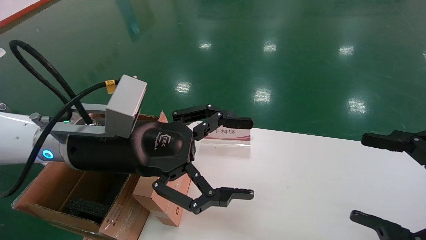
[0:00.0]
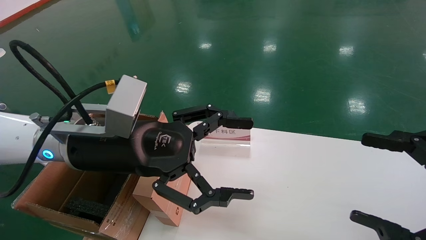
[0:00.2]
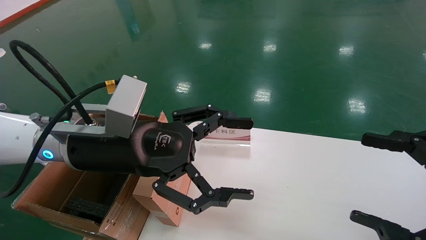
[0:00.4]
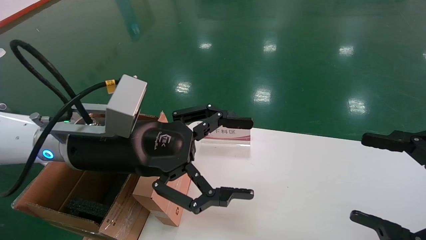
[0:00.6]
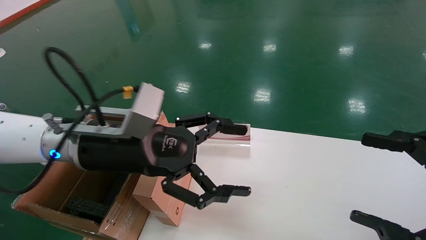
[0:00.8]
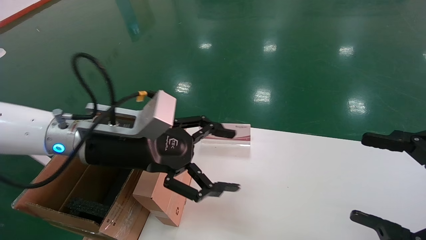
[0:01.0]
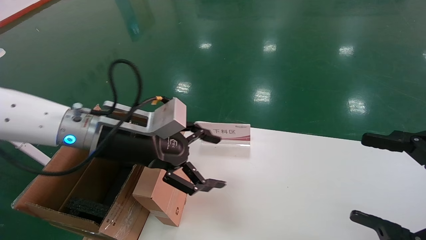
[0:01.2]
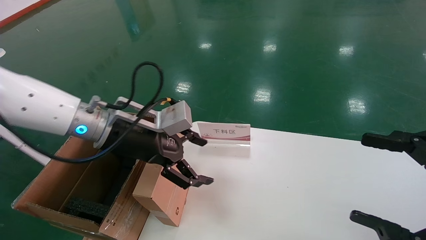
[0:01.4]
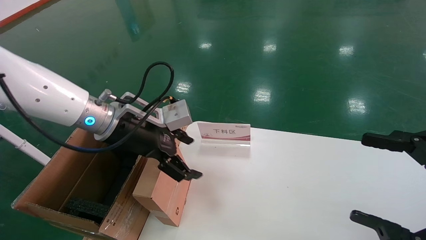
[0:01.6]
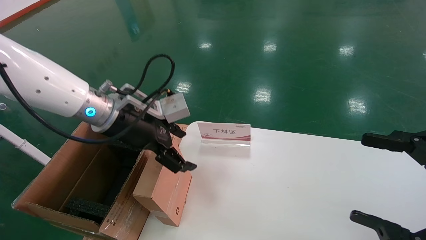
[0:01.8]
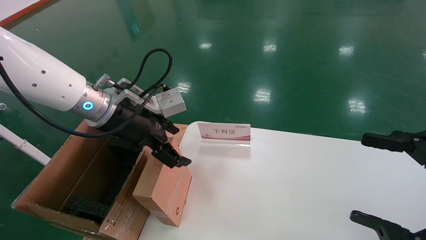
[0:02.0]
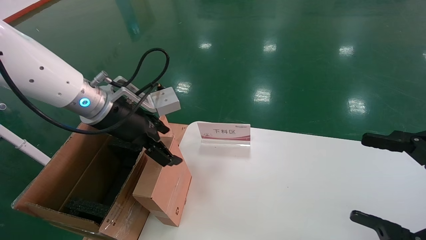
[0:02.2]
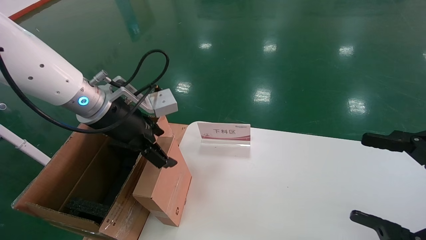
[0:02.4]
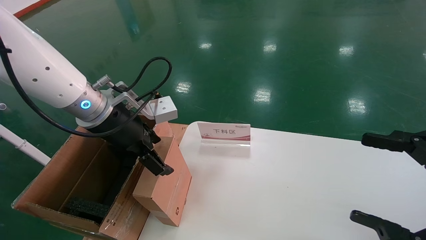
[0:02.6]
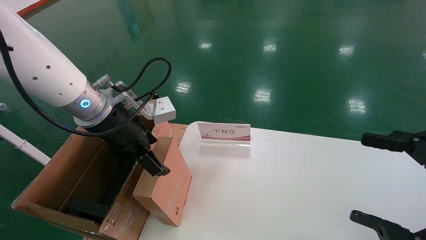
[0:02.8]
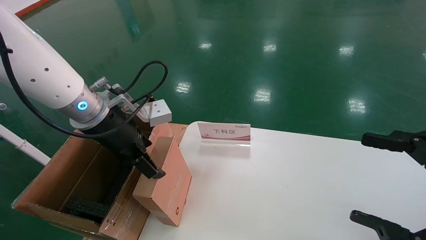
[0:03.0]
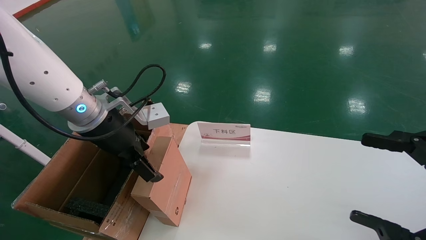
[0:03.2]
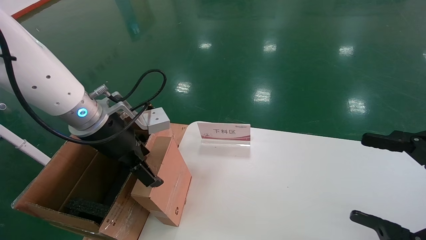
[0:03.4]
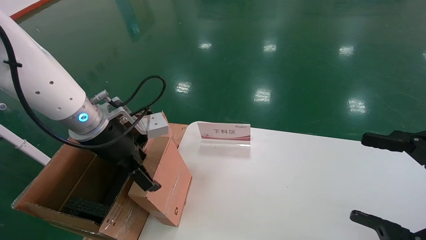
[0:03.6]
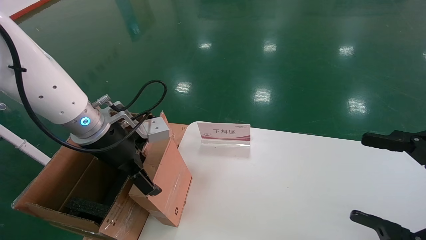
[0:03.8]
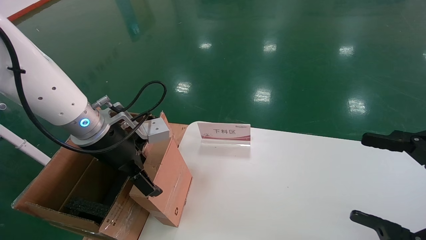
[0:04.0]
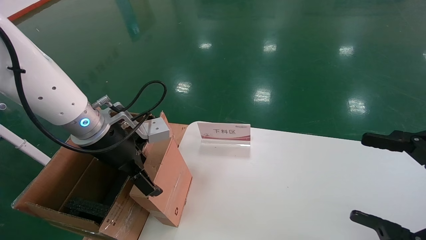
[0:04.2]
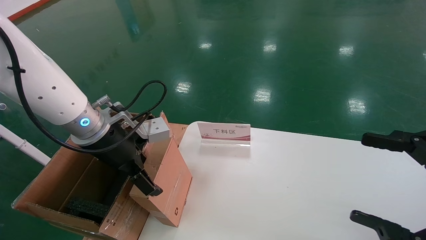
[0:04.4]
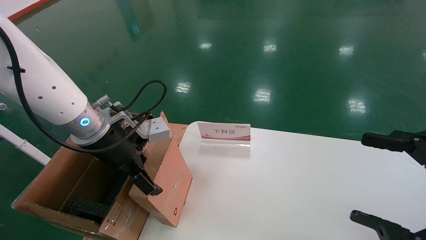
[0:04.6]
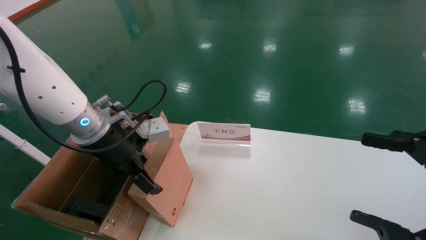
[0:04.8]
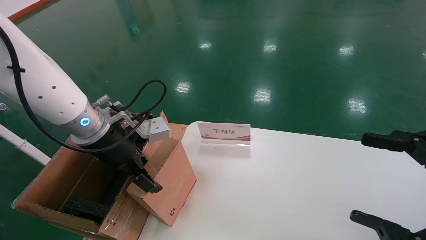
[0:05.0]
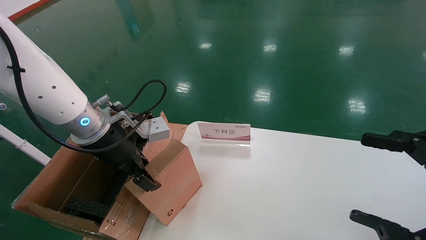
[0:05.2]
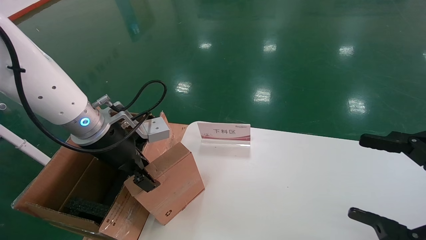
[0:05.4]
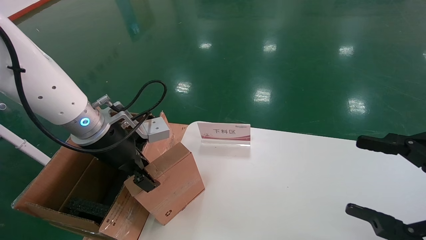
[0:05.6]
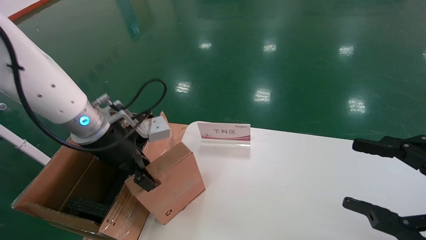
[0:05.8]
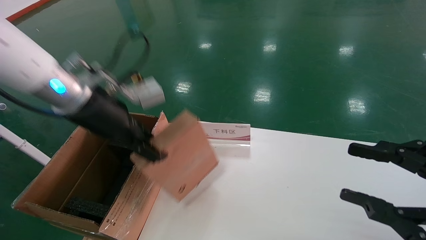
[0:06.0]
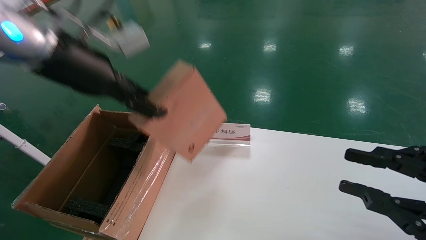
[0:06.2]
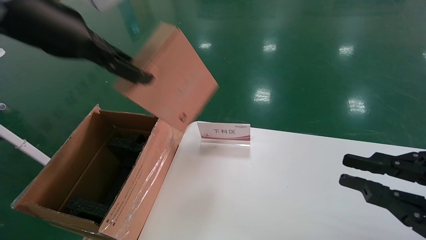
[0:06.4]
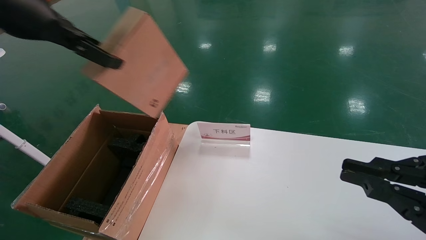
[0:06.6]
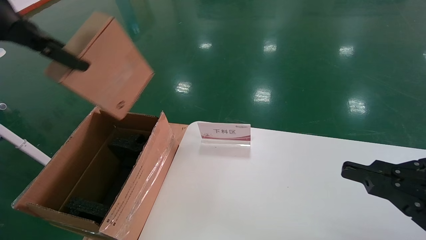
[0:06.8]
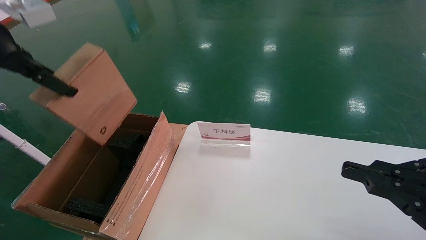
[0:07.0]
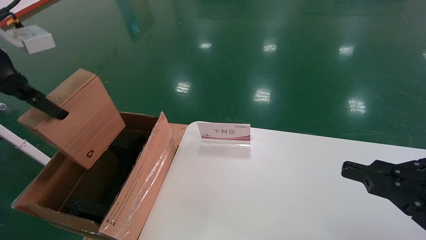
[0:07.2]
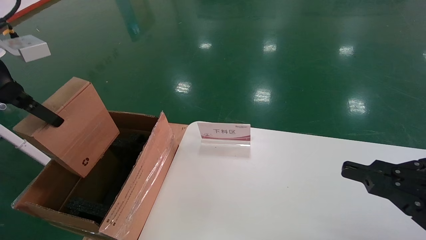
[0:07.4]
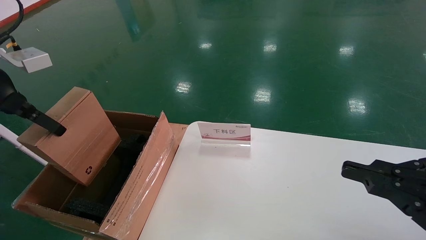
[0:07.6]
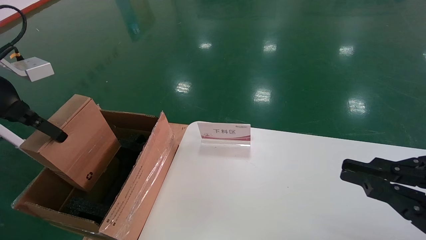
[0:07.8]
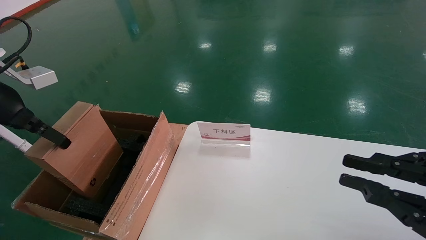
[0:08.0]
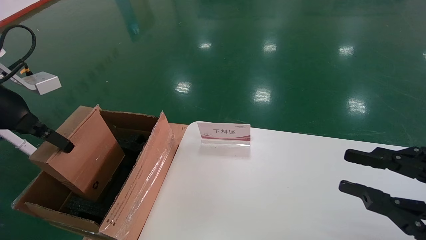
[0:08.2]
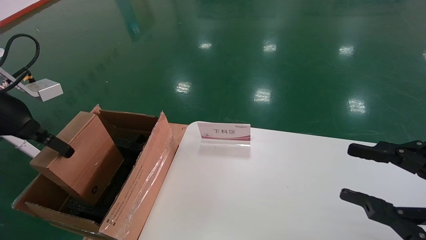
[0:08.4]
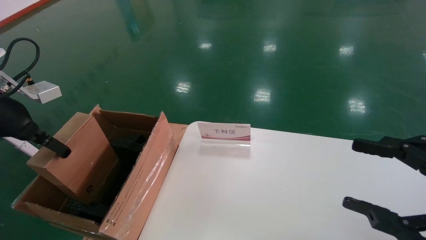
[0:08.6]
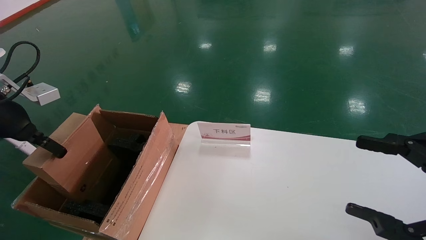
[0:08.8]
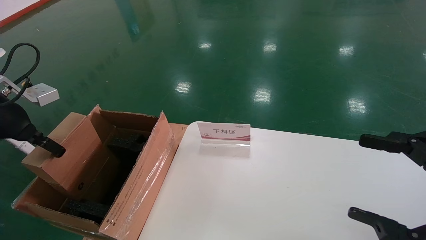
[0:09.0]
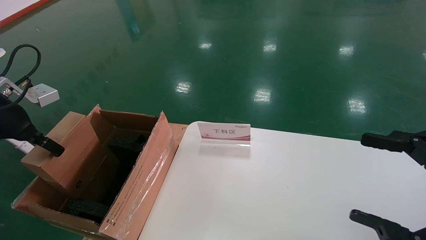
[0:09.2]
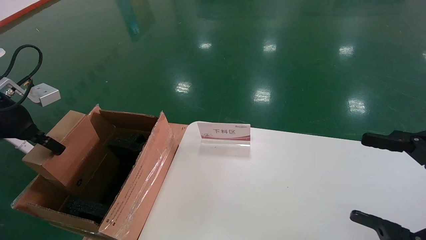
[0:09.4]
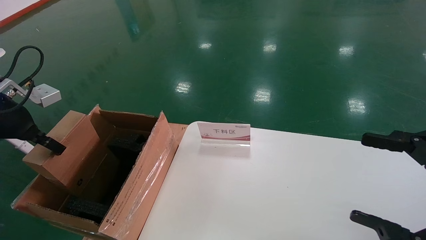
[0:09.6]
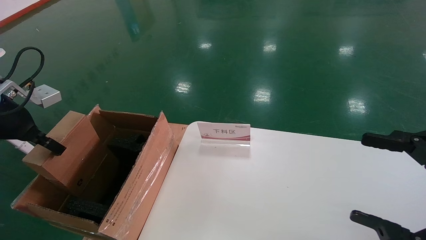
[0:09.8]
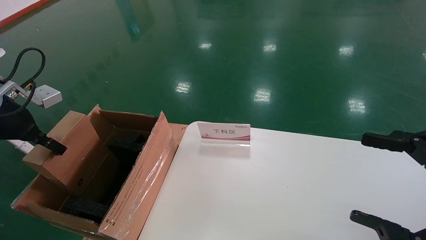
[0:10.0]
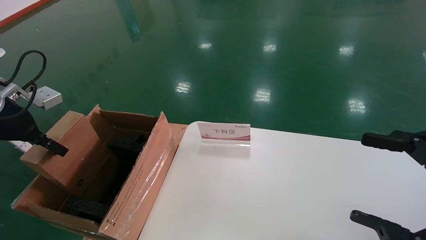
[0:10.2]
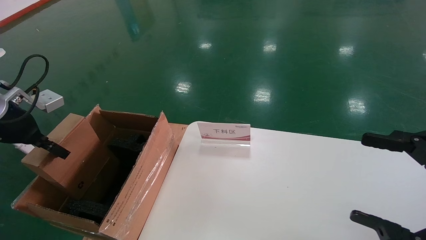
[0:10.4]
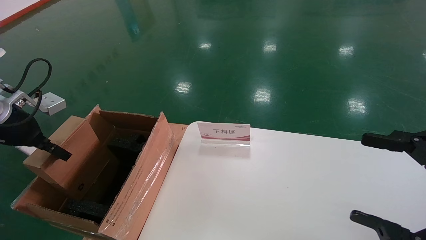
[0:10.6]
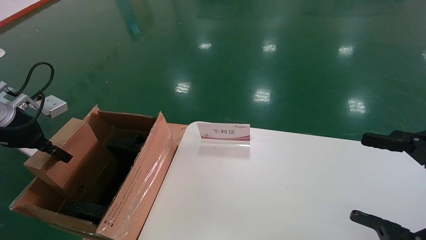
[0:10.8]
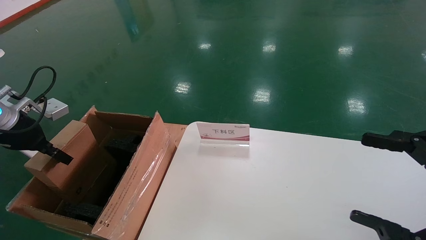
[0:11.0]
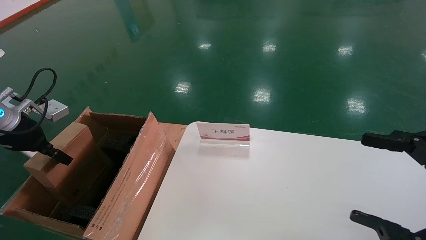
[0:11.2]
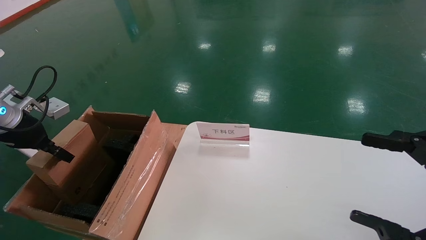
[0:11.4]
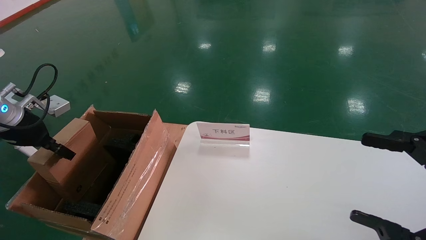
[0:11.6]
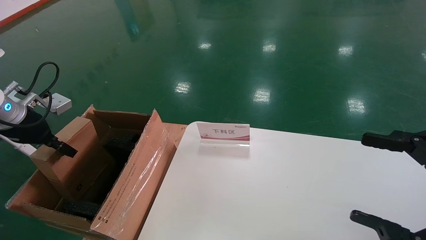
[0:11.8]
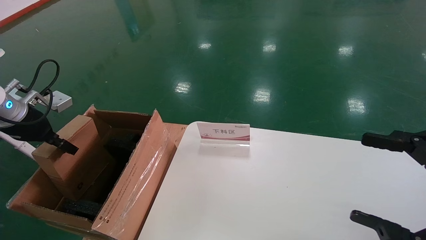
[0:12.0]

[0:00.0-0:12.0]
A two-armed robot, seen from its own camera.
Task of the whole recording: pick up the small cardboard box and load it into the large cardboard box.
Step, 0:00.8 to 0:05.8: Pick up the mouse and power cord box.
0:00.0 to 0:01.6: The left gripper shifts roughly 10 cm forward.
0:03.0 to 0:04.4: The grippers stay close to where they were, moving slightly.
0:04.4 to 0:06.0: The left gripper goes some 10 cm upward, and closes up. The right gripper closes up.
0:06.0 to 0:07.6: The left gripper travels to the left by approximately 15 cm, while the right gripper closes up.
0:07.6 to 0:09.0: The left gripper moves downward, roughly 5 cm. The right gripper opens its fingers.
0:09.0 to 0:10.4: The grippers move only a little.
0:10.4 to 0:12.0: There are only small adjustments of the grippers.

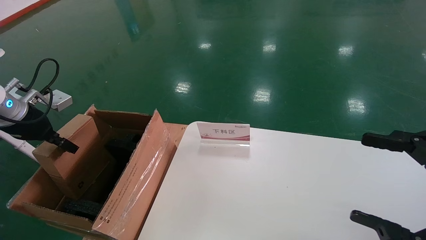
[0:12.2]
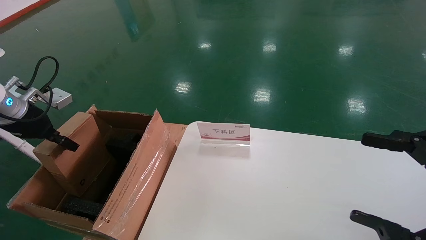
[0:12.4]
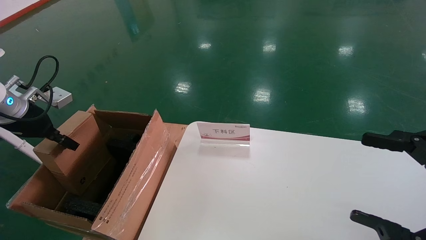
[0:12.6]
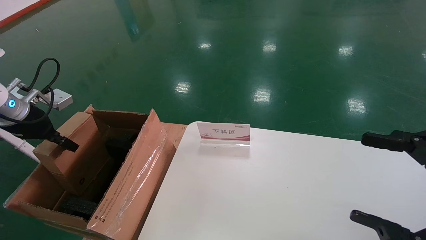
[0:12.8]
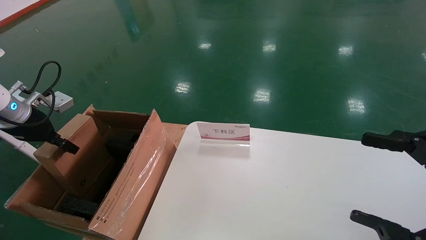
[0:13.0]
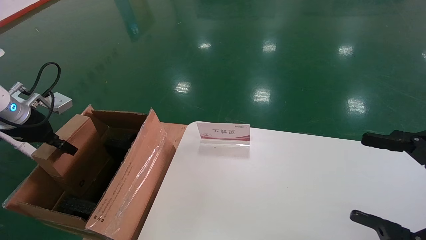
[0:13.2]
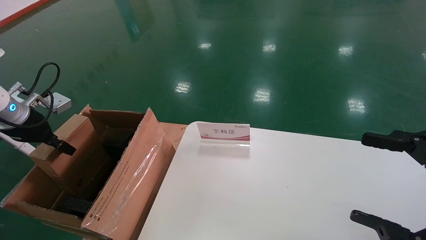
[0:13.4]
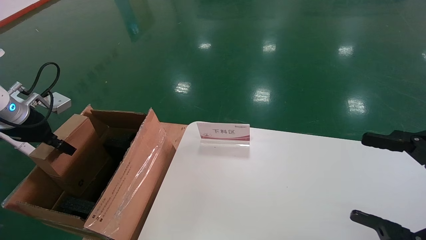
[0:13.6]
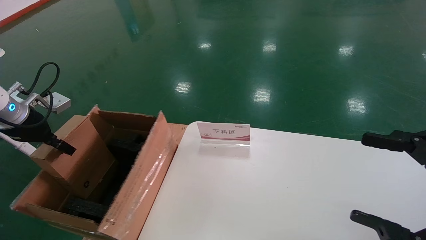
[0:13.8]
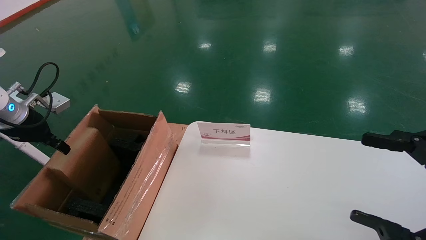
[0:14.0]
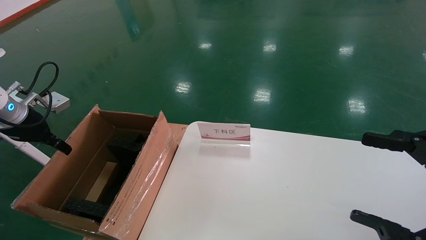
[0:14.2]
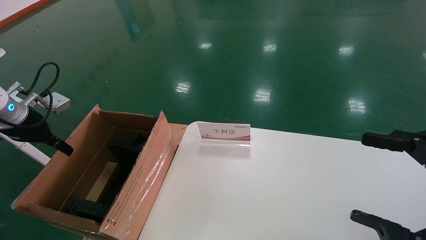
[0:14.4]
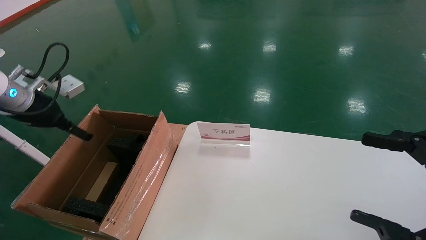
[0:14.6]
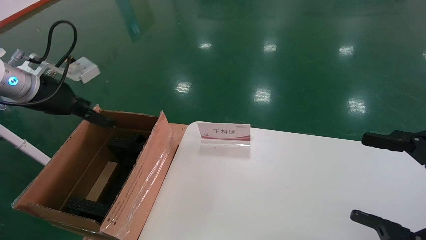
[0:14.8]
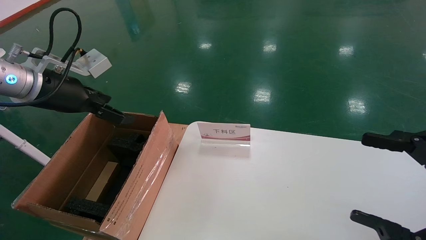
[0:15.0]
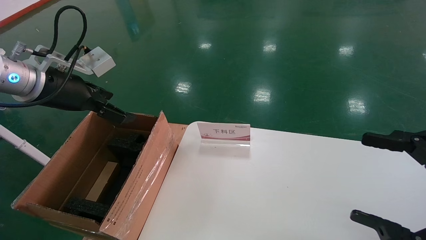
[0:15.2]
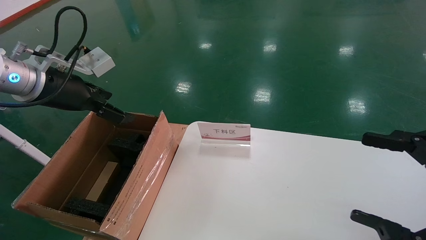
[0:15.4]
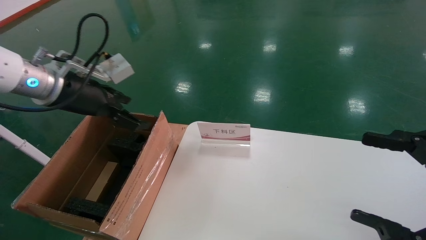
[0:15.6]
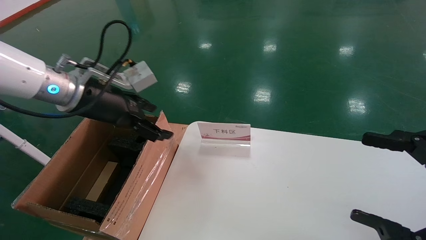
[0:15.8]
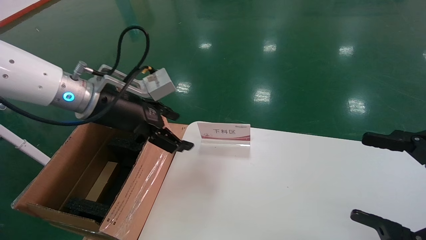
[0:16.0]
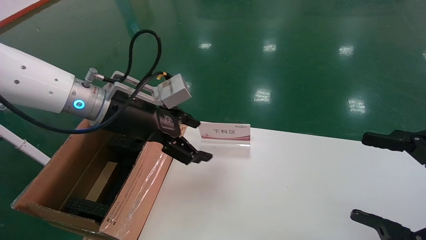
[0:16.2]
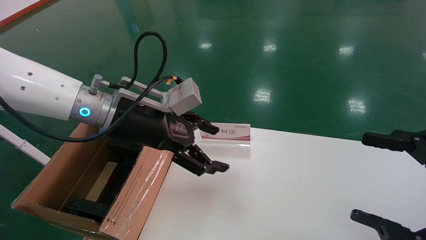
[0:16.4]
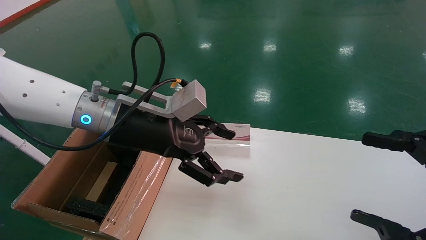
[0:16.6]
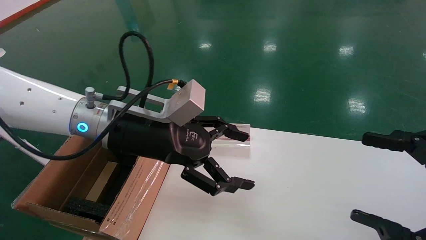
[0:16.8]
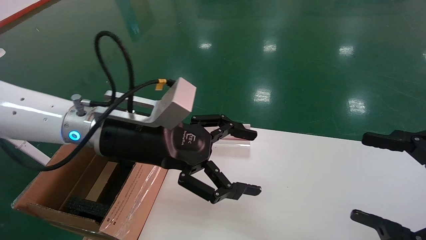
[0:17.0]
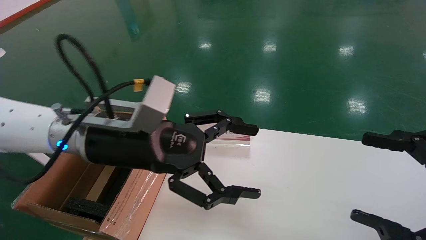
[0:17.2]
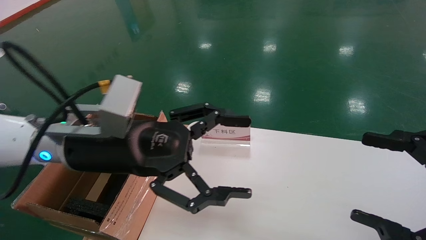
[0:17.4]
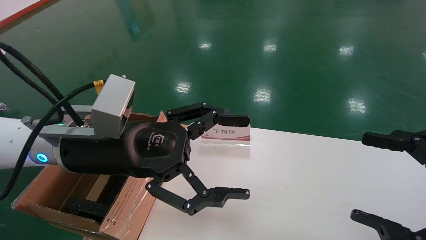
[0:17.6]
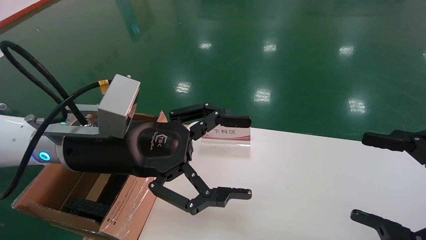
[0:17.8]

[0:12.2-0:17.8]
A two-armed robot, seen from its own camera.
Task of the whole recording: pick up the small cardboard box and load it into the large cardboard box.
Step, 0:12.2 to 0:14.8: Place the mouse and power cord box into the case.
0:12.2 to 0:13.6: The two grippers keep their place.
0:13.6 to 0:15.0: The left gripper travels to the right and upward by approximately 15 cm, and opens.
0:15.0 to 0:16.4: The left gripper moves to the right, approximately 15 cm.
0:16.4 to 0:17.8: The left gripper goes roughly 5 cm backward.
